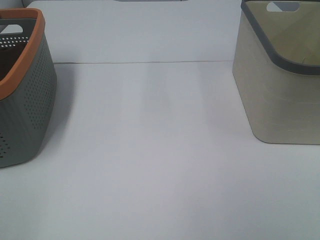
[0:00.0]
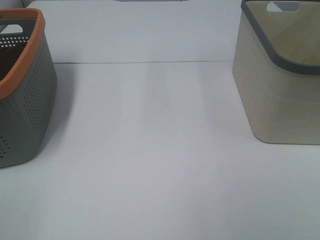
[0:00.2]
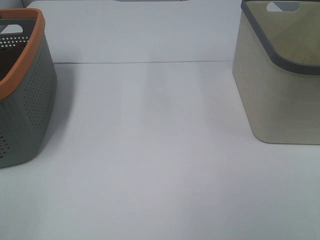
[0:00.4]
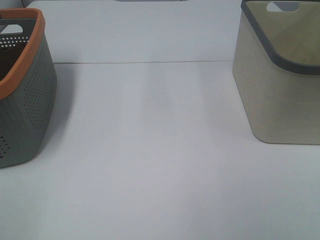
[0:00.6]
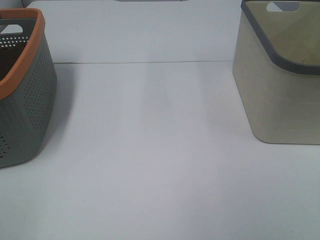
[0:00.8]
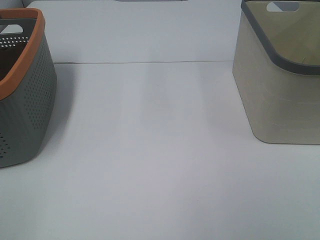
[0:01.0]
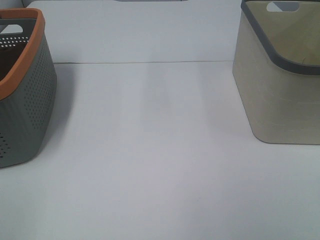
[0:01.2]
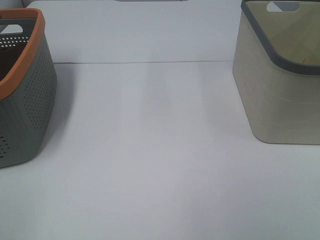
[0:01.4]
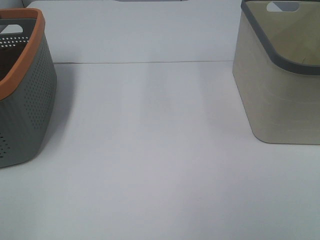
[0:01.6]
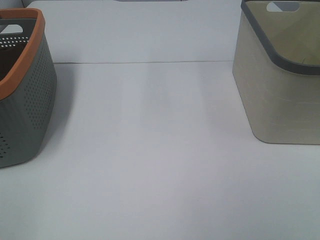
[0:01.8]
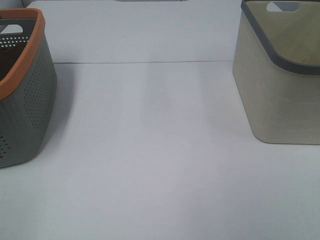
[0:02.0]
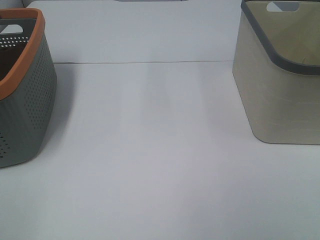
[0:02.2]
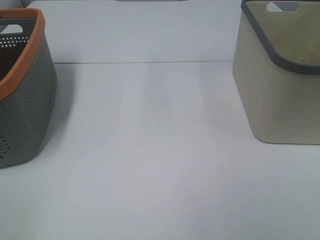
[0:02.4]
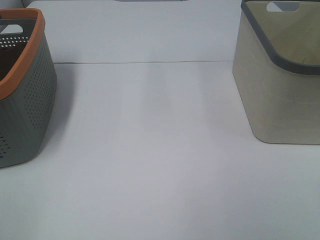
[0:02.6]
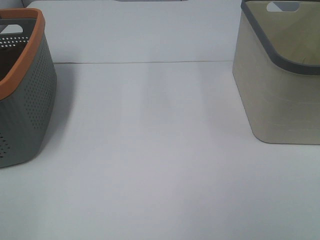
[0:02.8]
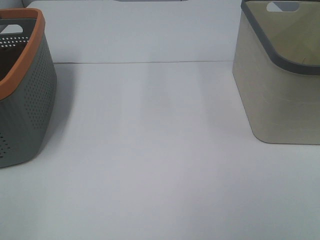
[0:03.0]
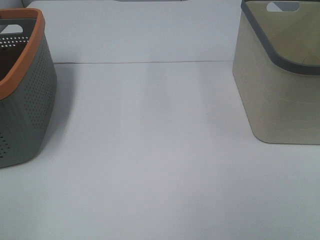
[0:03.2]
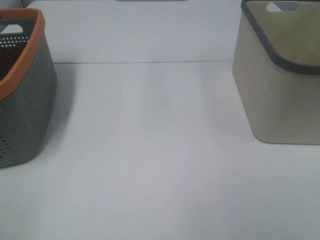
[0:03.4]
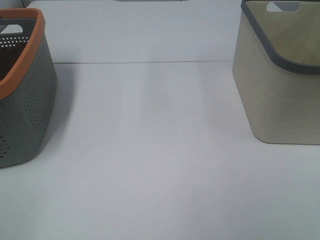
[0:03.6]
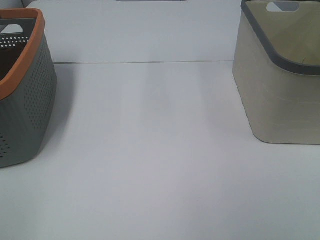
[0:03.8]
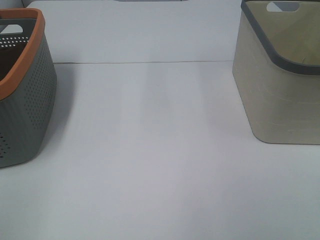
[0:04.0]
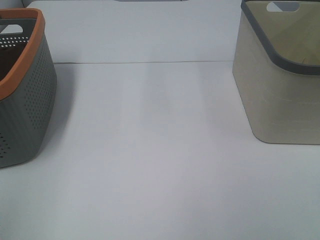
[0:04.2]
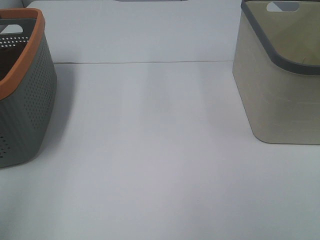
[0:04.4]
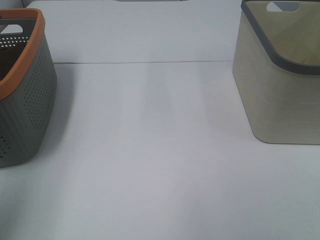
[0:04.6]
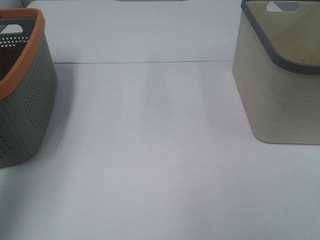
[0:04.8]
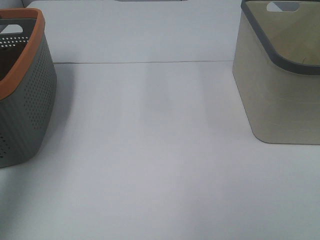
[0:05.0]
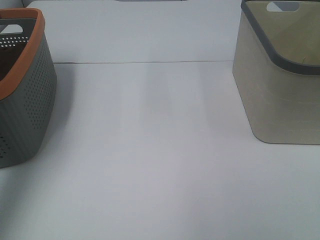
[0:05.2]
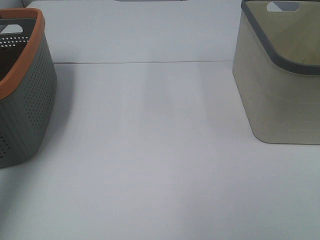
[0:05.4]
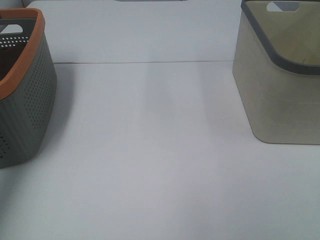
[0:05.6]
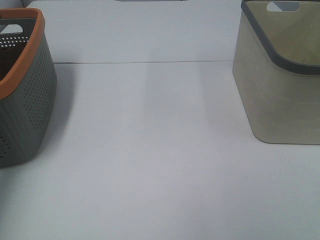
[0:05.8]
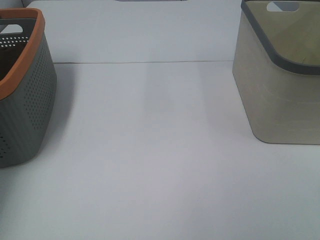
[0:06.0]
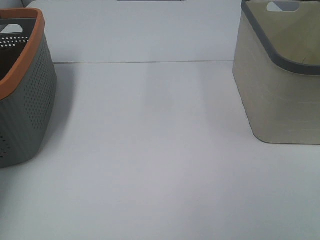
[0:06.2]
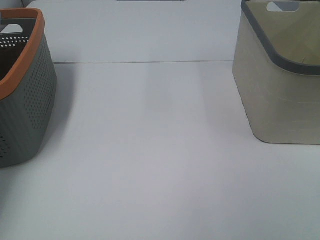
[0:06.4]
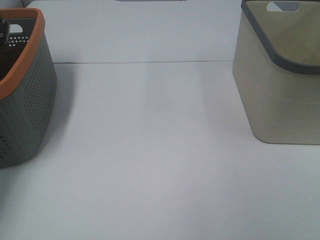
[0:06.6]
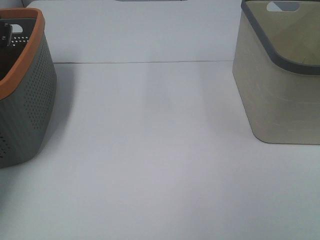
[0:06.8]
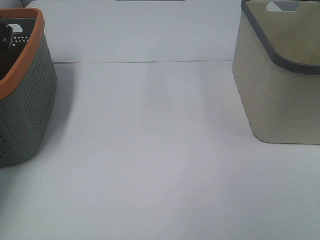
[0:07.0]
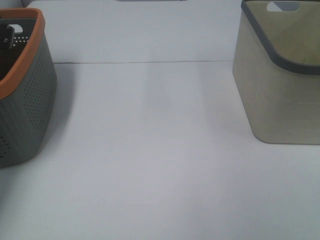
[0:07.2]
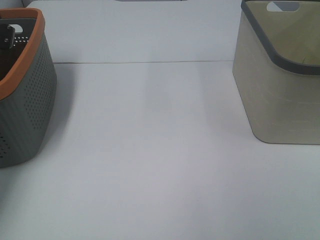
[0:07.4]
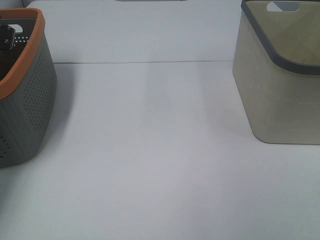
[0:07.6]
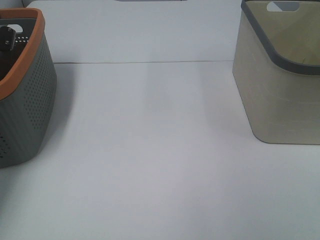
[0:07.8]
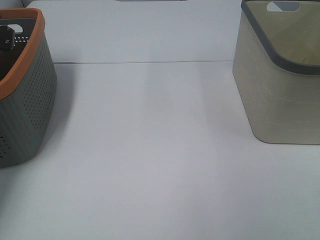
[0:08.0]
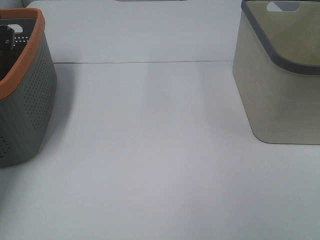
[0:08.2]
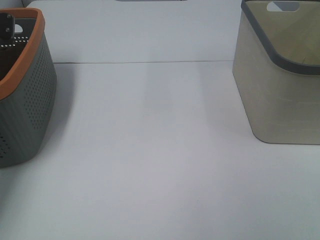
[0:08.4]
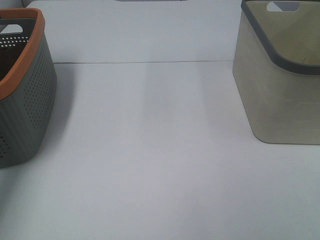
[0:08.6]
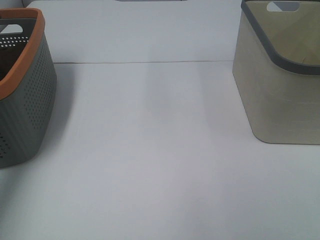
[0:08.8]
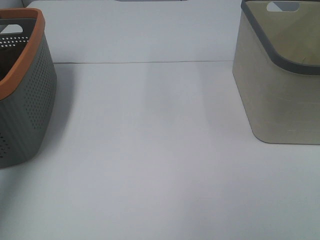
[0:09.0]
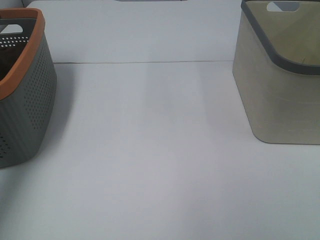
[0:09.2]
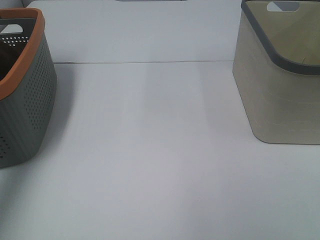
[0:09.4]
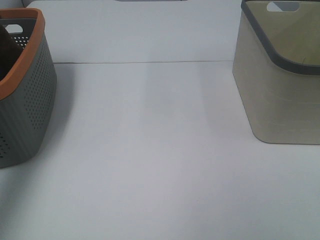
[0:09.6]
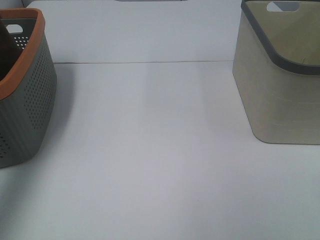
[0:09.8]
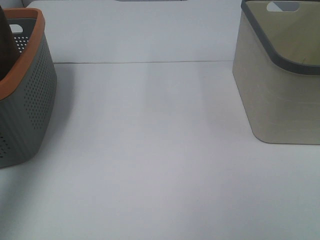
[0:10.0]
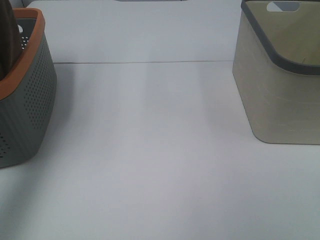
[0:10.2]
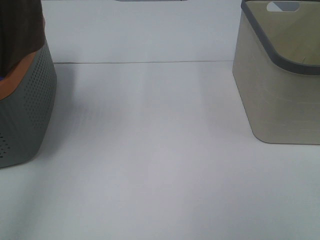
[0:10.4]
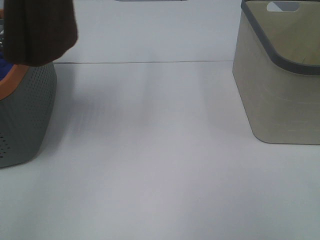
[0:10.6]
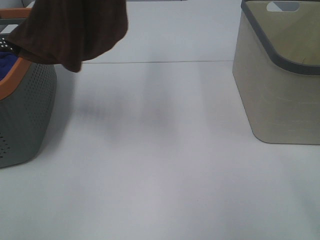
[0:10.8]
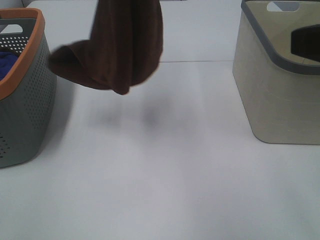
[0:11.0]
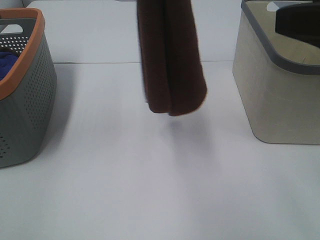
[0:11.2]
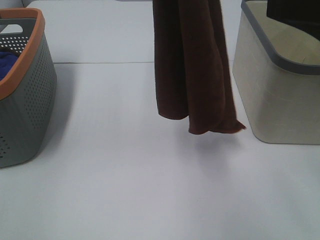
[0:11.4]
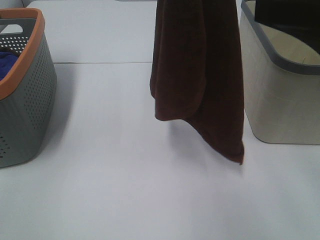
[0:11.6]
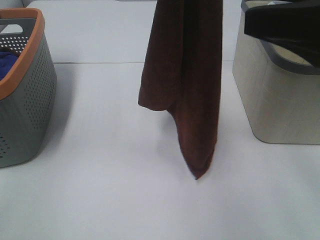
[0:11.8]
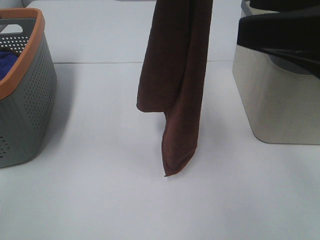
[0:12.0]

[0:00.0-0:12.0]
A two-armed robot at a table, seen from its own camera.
Task of the whole recording: Remove the towel and place it.
0:00.0 to 0:03.0: Both grippers stay about where they are.
0:04.4 to 0:06.0: The left gripper heads forward, covering approximately 35 cm.
0:09.0 to 0:10.4: The left gripper travels upward, to the right and backward by roughly 20 cm.
0:10.4 to 0:12.0: The left gripper is displaced to the right by roughly 15 cm. Meanwhile the right gripper moves forward, approximately 20 cm.

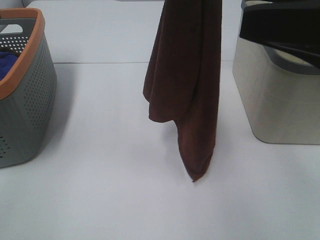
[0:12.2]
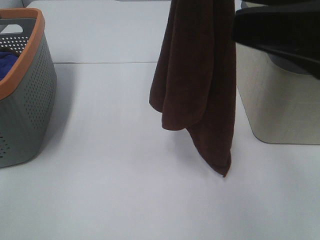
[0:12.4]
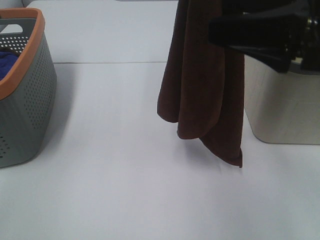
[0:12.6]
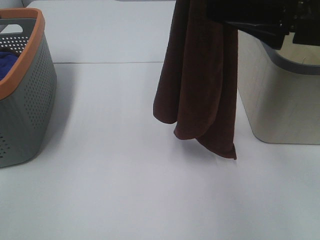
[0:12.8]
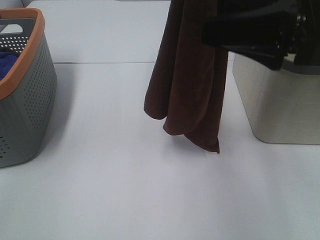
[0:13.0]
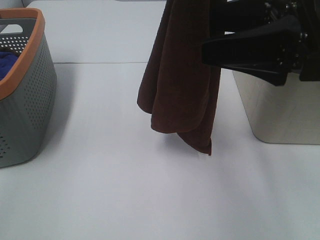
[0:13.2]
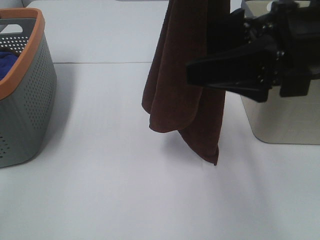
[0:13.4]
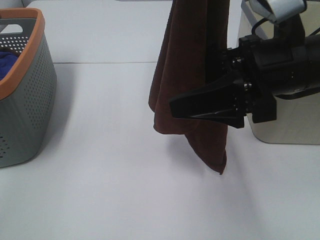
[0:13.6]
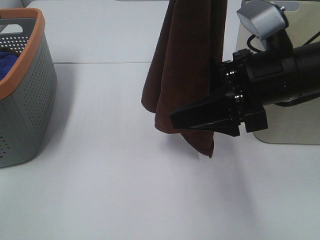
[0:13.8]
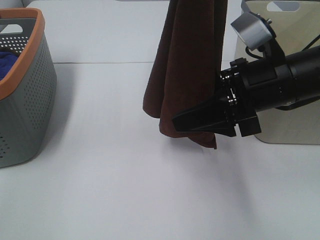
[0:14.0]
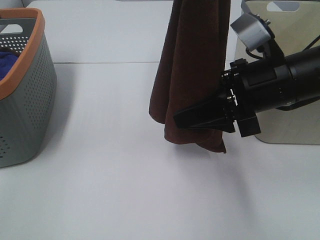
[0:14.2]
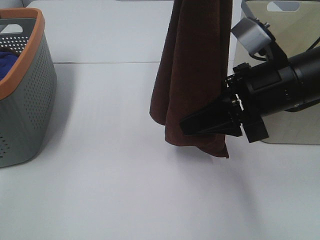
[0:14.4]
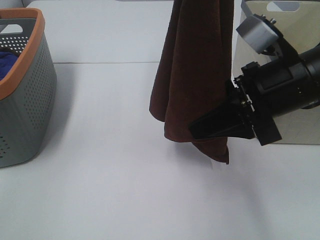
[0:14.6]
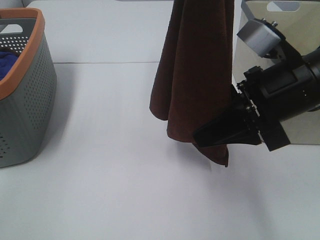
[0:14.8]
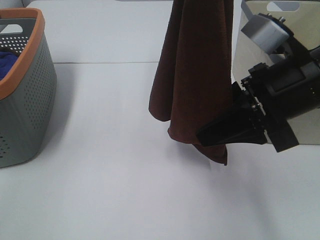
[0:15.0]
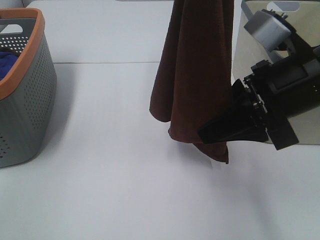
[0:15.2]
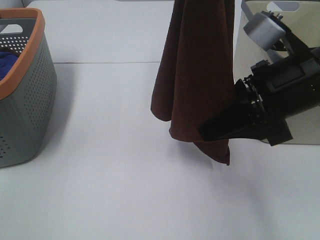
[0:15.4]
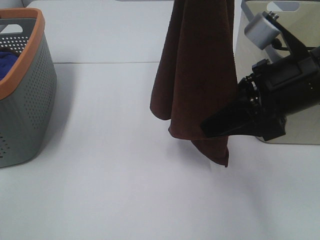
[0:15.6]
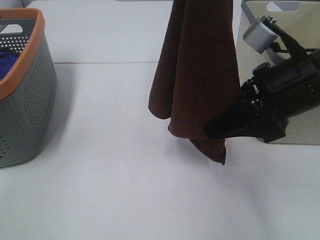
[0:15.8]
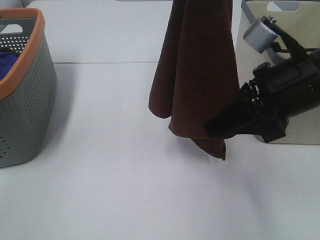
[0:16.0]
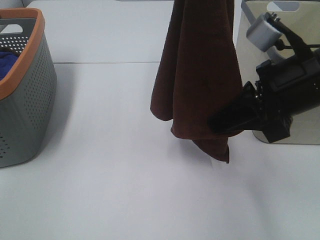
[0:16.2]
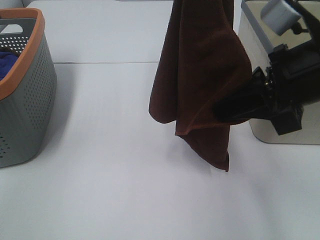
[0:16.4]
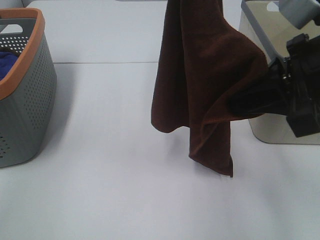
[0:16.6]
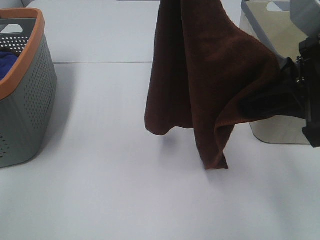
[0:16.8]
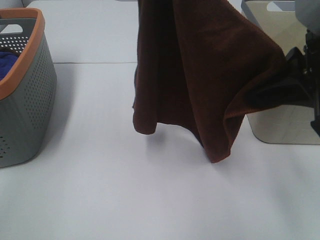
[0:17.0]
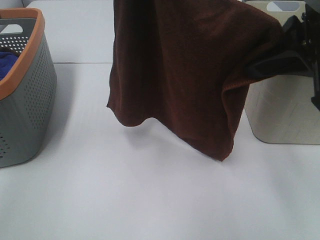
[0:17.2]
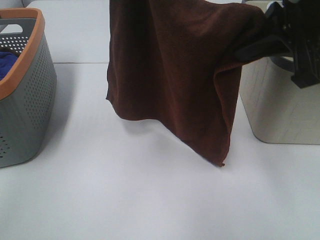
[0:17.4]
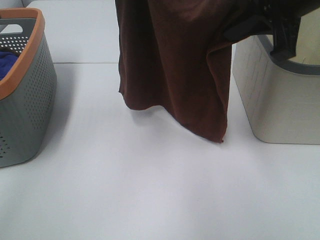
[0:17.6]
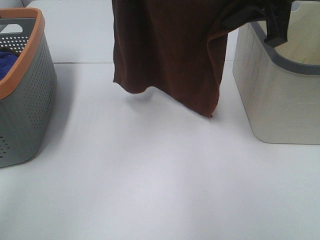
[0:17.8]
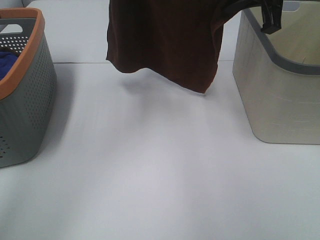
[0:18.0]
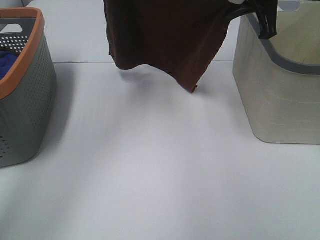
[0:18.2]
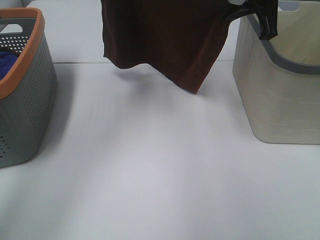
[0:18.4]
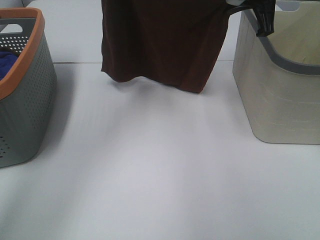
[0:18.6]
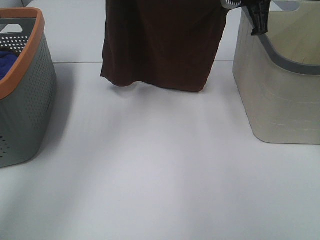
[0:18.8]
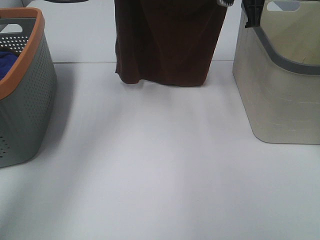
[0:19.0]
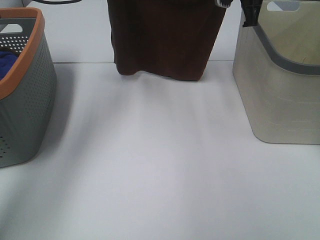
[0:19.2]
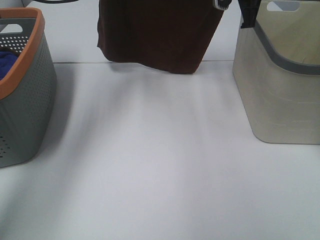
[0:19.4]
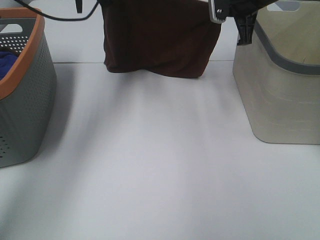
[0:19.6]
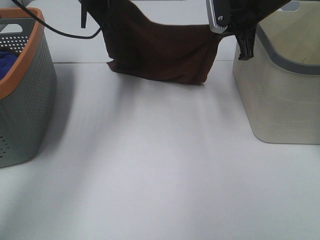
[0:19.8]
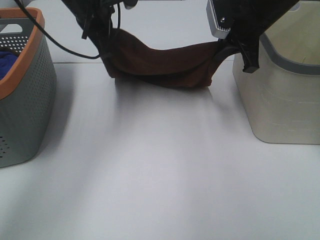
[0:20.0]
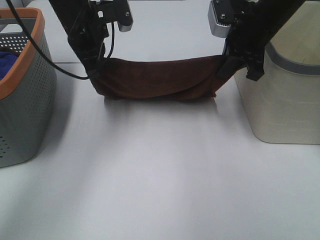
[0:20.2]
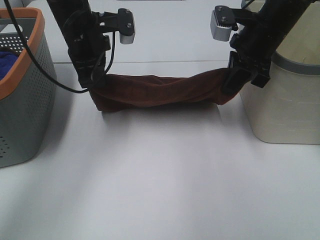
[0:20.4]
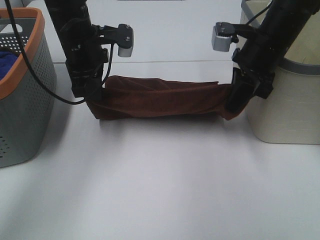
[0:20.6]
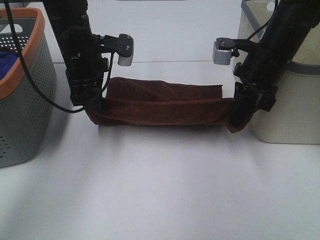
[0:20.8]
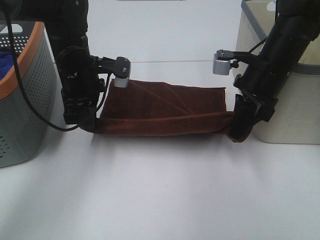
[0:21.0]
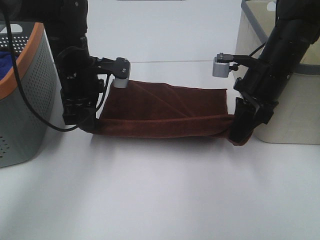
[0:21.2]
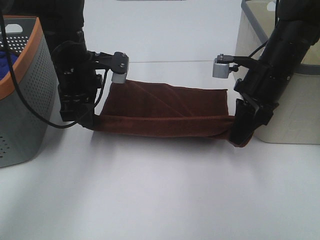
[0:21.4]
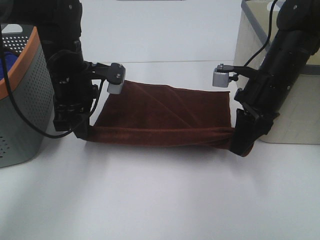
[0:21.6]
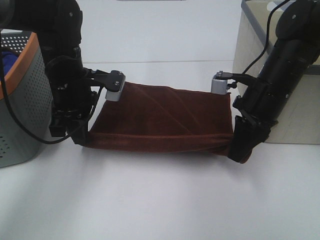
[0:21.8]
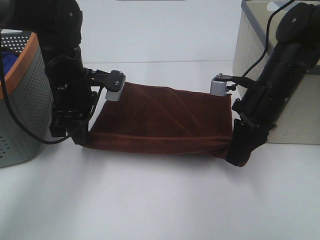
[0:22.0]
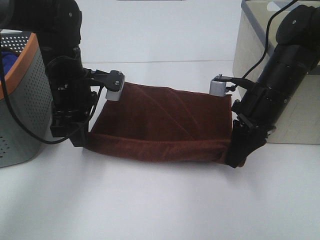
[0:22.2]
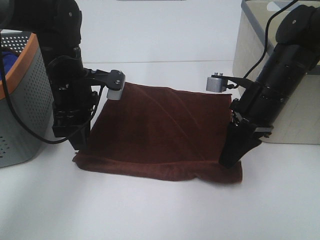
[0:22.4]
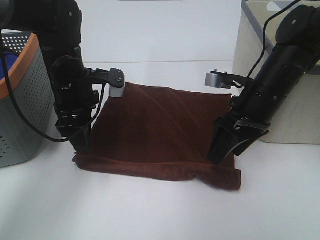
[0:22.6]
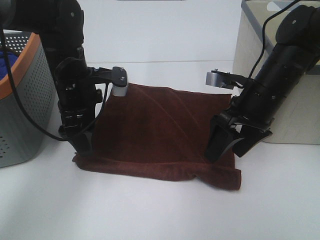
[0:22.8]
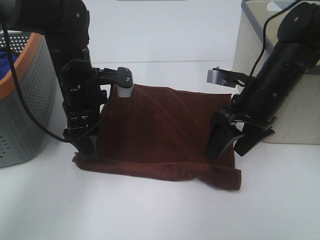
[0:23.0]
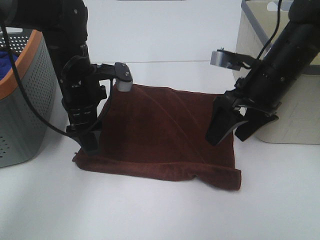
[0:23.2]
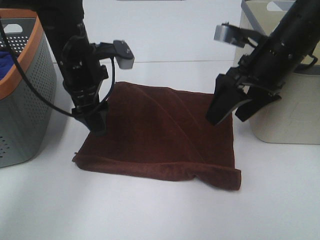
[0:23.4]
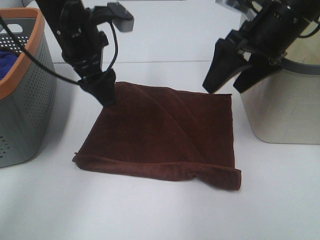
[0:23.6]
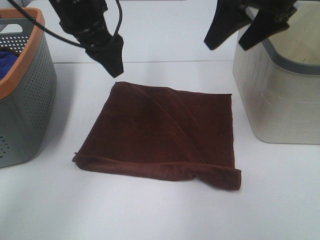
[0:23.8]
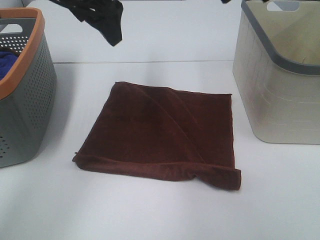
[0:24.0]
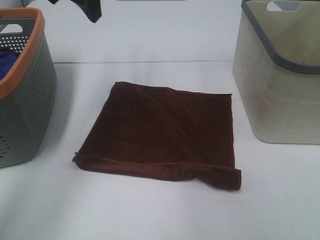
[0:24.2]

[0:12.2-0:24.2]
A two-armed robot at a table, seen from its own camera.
Task of the whole recording: Remove the towel and place it.
Step, 0:12.2 to 0:14.8: Right hand: grab a corner of the brown towel and straighten it.
Step, 0:15.0 to 0:17.8: Left hand: spread the brown towel flat on the table.
Step, 0:15.0 to 0:17.8: Right hand: spread the brown towel flat on the table.
0:12.2 to 0:13.8: The right gripper travels downward, forward and to the left by approximately 15 cm.
0:13.8 to 0:15.2: The right gripper closes.
0:15.2 to 0:16.6: The right gripper moves about 5 cm, and closes its fingers.
0:16.6 to 0:18.2: The left gripper goes approximately 20 cm forward, downward and to the left. Meanwhile the right gripper moves forward, roughly 20 cm.
0:18.2 to 0:19.8: The left gripper travels downward by roughly 10 cm; the right gripper moves downward, about 5 cm.
0:19.8 to 0:21.2: The right gripper travels backward and downward by roughly 10 cm. The left gripper moves downward and backward, about 15 cm.
0:21.2 to 0:22.6: The right gripper opens up. Meanwhile the left gripper opens its fingers.
0:22.6 to 0:24.2: The two grippers go about 25 cm upward. The left gripper opens up.
